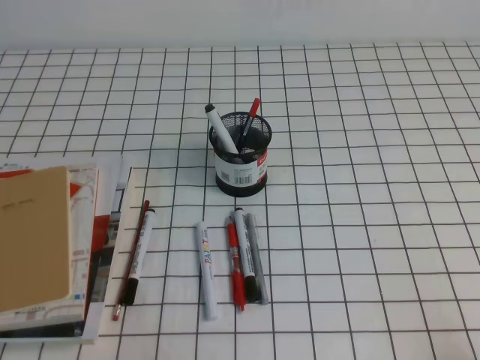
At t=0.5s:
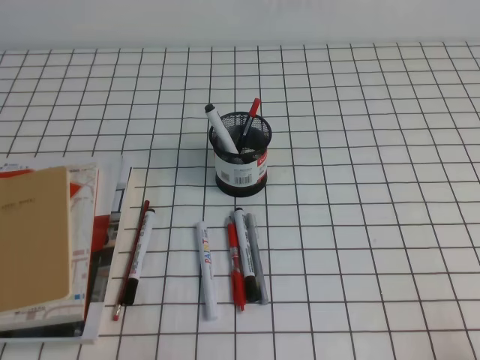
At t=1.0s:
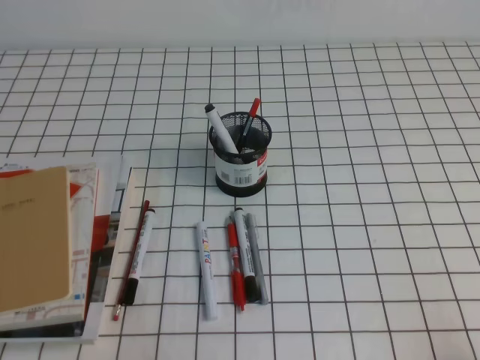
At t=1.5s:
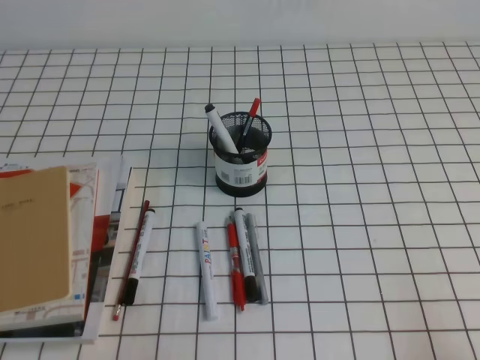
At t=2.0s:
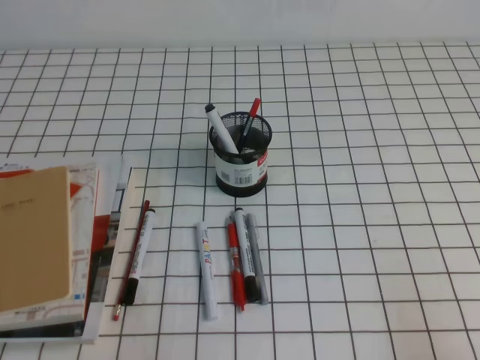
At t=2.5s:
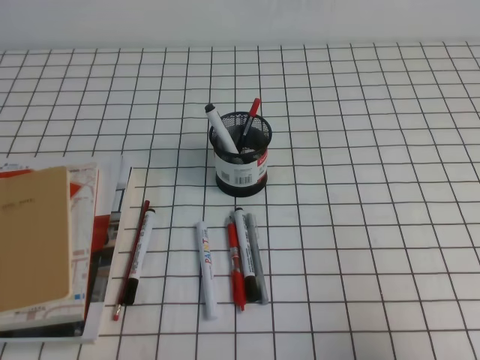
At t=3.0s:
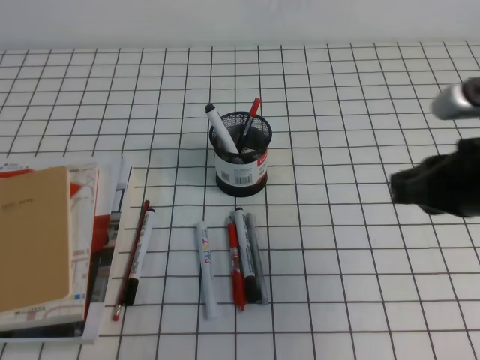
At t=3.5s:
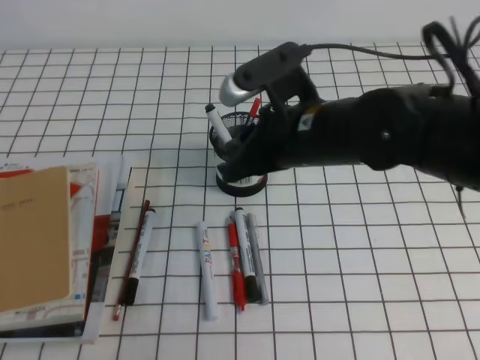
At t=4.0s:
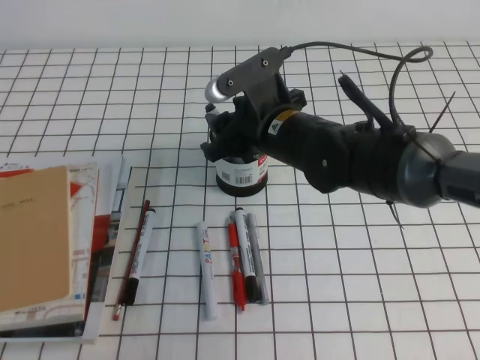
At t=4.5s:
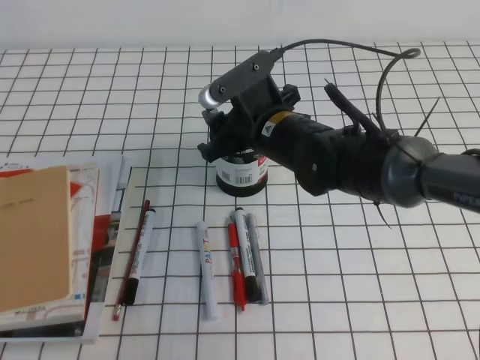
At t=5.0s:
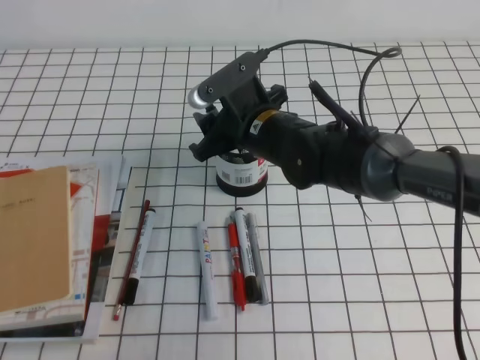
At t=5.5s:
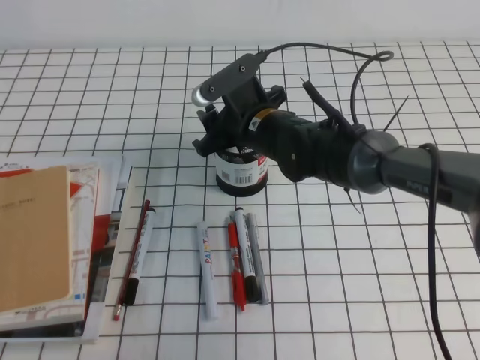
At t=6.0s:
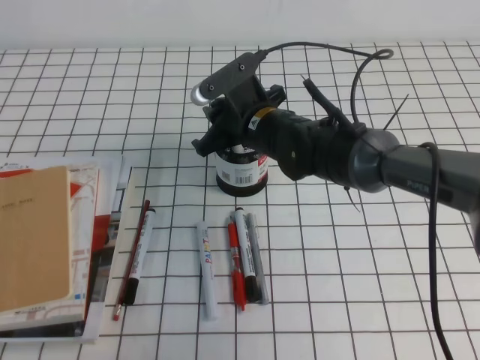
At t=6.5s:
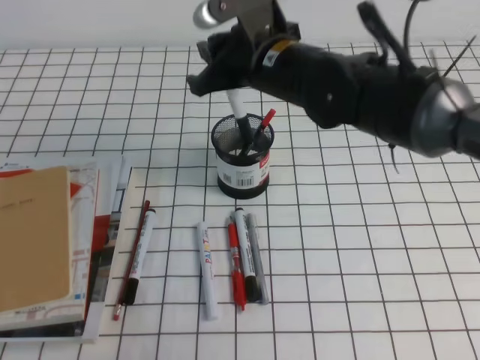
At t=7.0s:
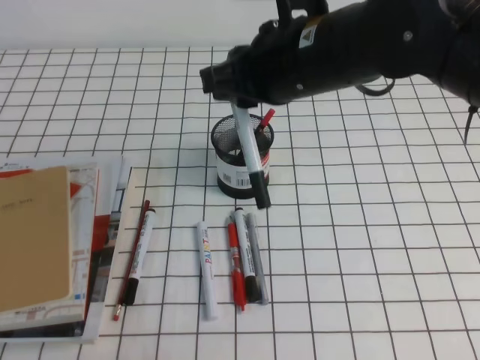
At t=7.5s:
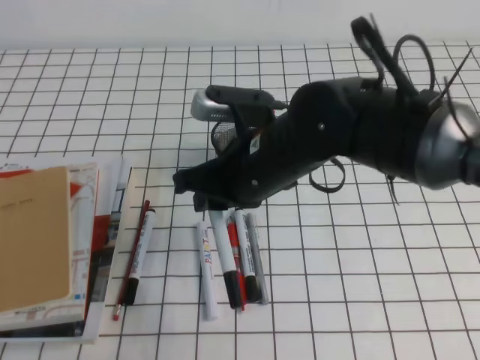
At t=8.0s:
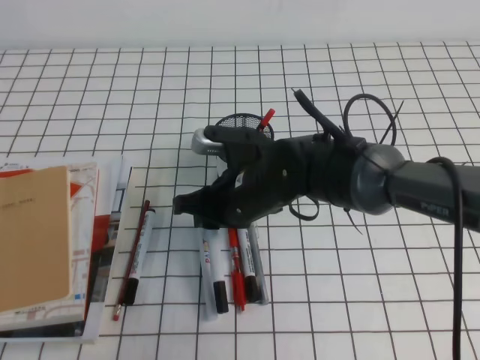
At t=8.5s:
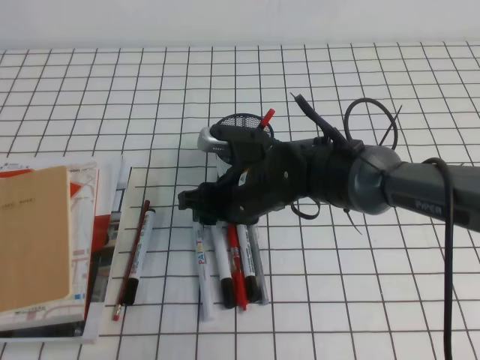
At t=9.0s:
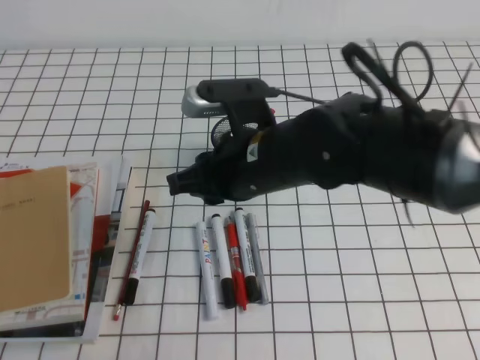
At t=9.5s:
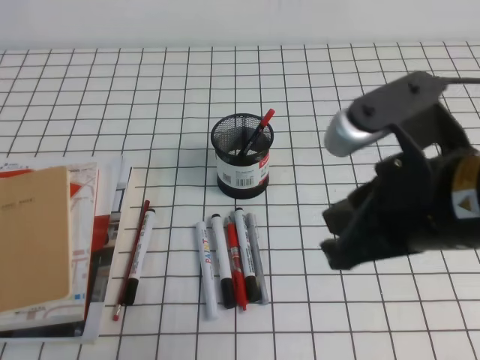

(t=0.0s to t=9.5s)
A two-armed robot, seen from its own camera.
t=2.0s - t=4.0s: The right gripper travels forward and to the left by approximately 40 cm, and opens.
t=4.0s - t=5.5s: The right gripper is displaced forward by about 5 cm.
t=5.5s - t=7.5s: The right gripper is displaced backward and upward by roughly 10 cm, and closes.
t=7.5s - t=9.5s: The right gripper is displaced backward, to the right and upward by some 15 cm, and opens and closes again.

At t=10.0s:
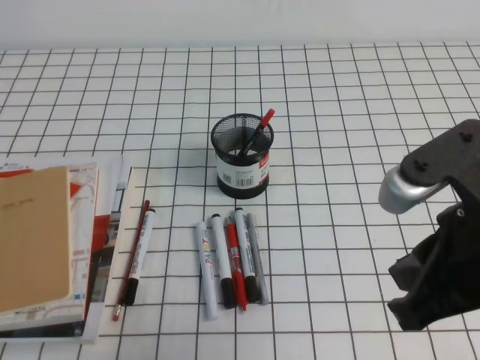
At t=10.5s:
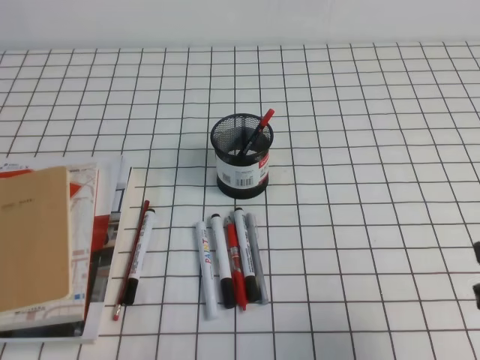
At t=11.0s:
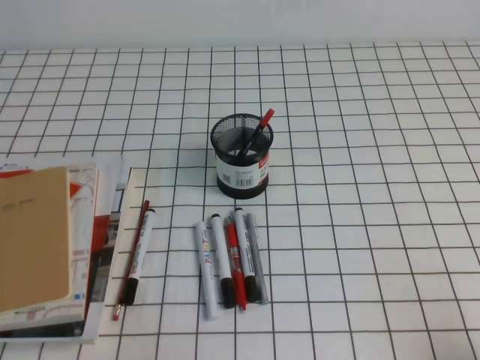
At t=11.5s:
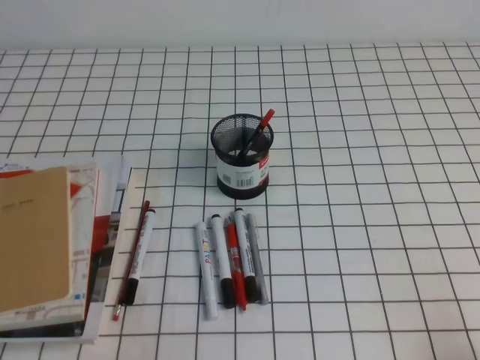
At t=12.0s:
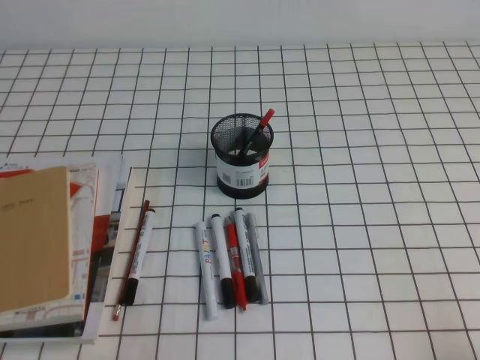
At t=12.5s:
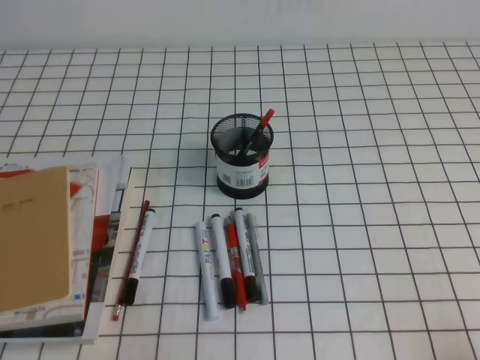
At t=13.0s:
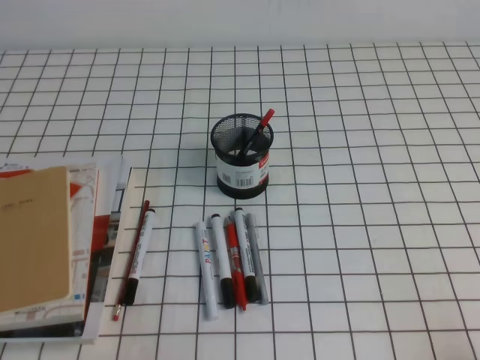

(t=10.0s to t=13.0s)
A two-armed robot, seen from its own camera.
Step, t=10.0s - t=13.0s: Pick up the pen from the pen holder.
t=10.0s - t=11.5s: The right gripper goes about 25 cm downward, to the right and backward.
